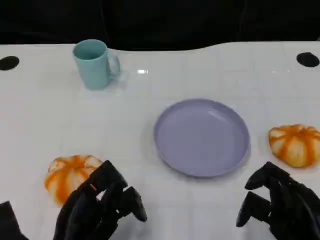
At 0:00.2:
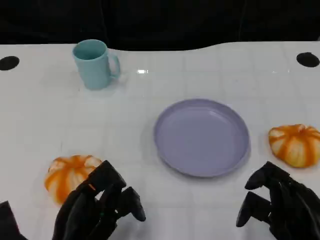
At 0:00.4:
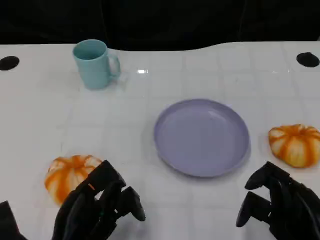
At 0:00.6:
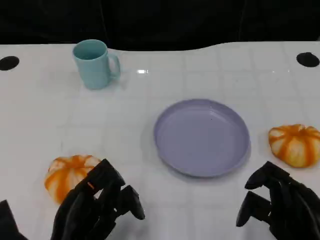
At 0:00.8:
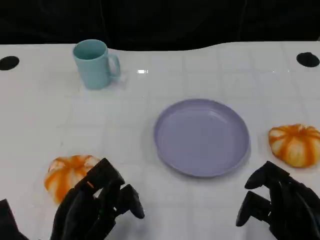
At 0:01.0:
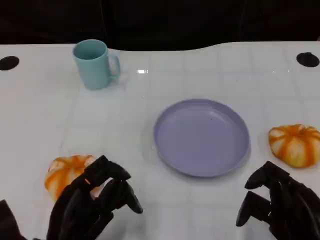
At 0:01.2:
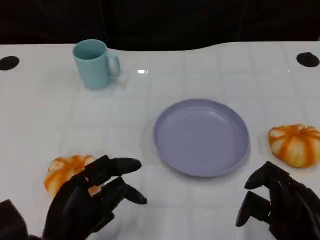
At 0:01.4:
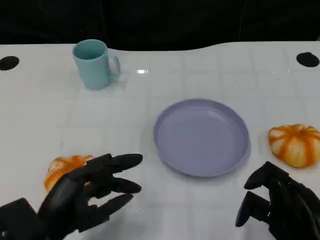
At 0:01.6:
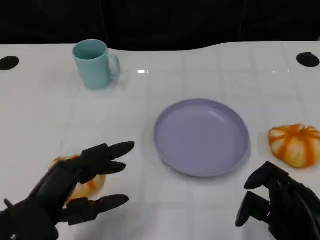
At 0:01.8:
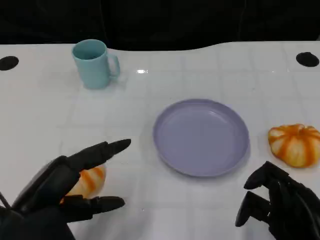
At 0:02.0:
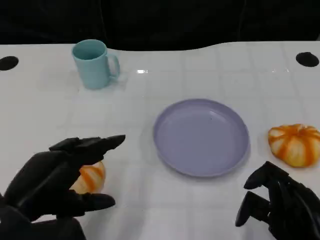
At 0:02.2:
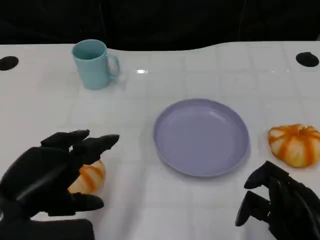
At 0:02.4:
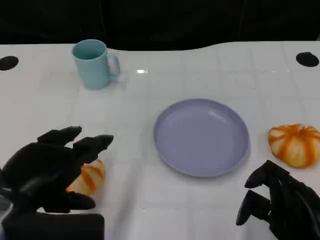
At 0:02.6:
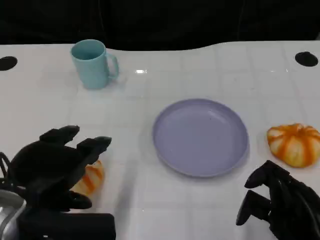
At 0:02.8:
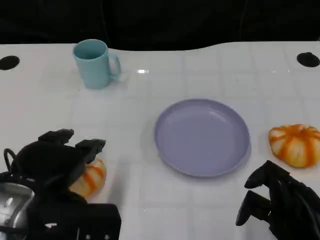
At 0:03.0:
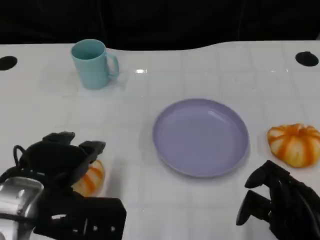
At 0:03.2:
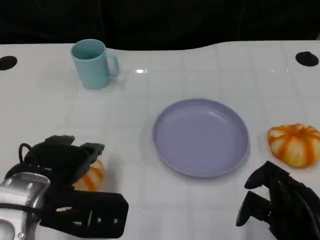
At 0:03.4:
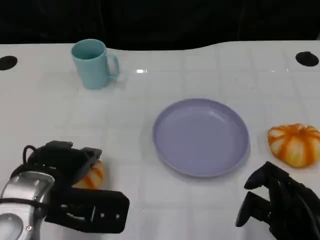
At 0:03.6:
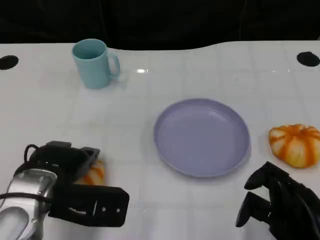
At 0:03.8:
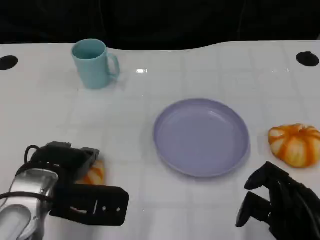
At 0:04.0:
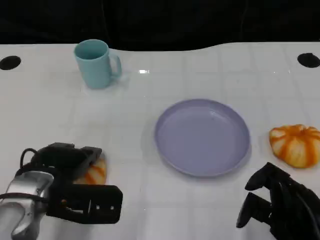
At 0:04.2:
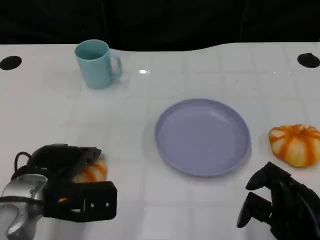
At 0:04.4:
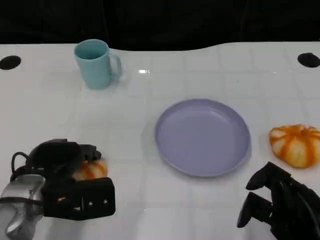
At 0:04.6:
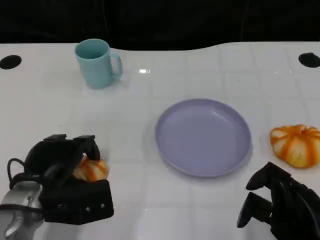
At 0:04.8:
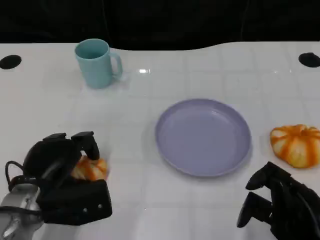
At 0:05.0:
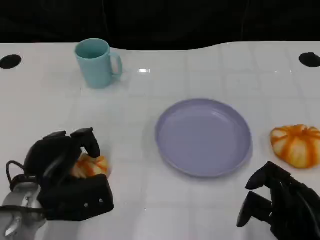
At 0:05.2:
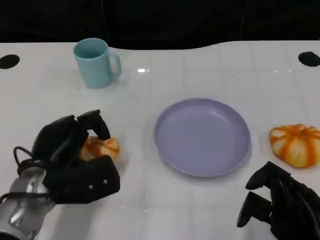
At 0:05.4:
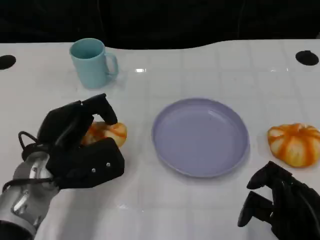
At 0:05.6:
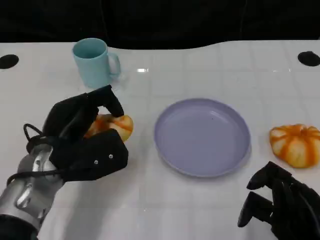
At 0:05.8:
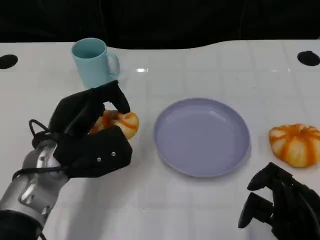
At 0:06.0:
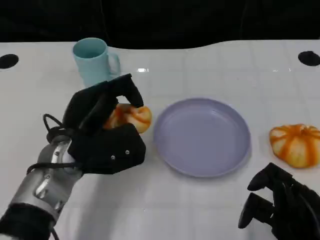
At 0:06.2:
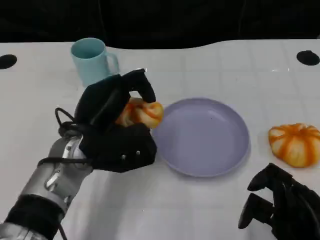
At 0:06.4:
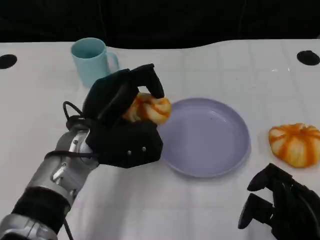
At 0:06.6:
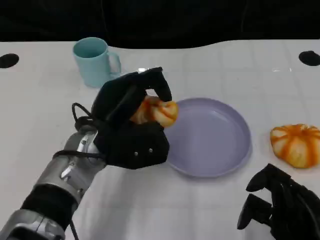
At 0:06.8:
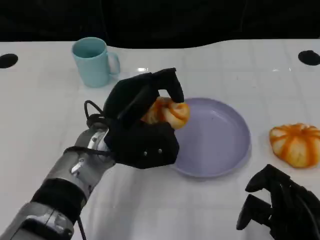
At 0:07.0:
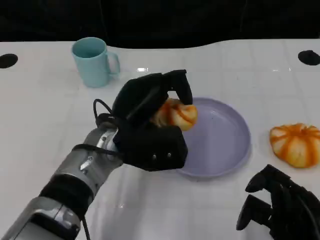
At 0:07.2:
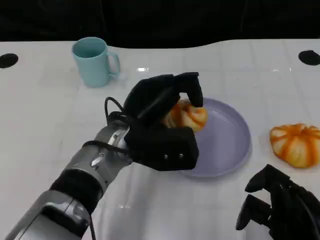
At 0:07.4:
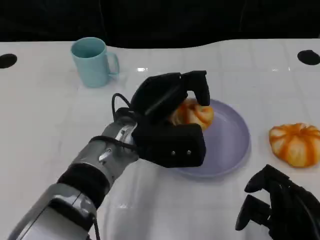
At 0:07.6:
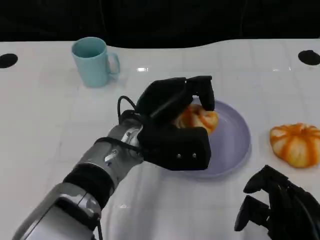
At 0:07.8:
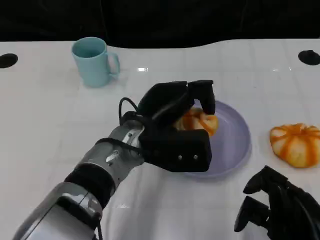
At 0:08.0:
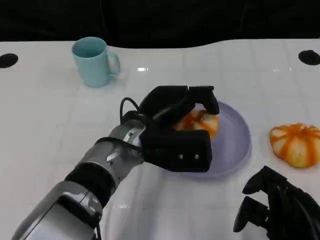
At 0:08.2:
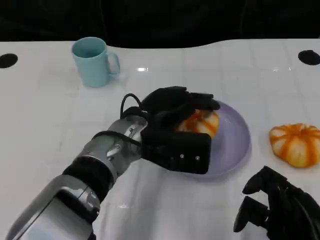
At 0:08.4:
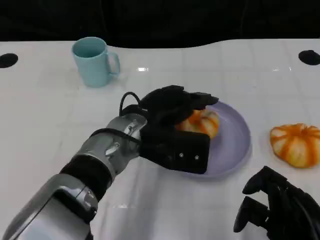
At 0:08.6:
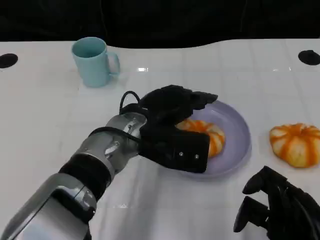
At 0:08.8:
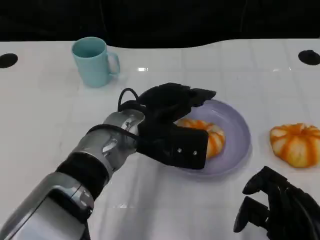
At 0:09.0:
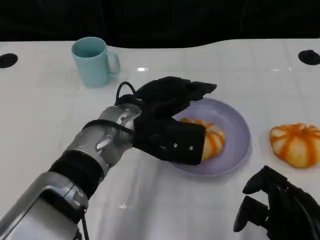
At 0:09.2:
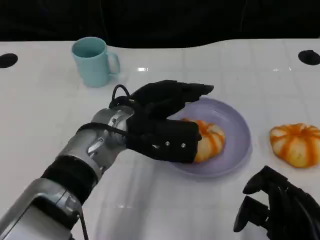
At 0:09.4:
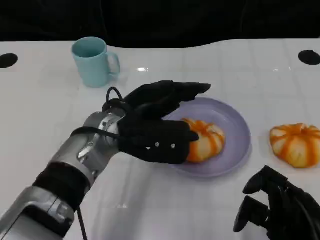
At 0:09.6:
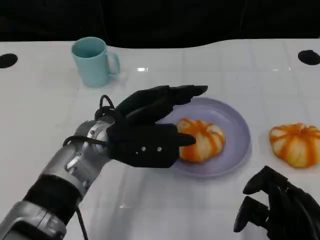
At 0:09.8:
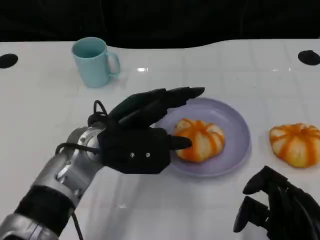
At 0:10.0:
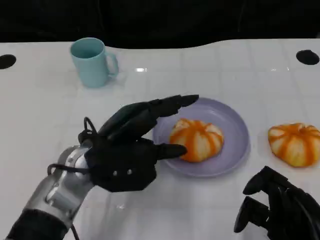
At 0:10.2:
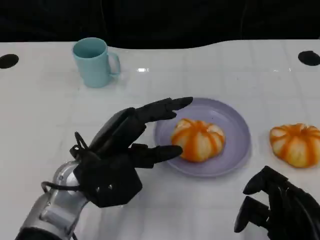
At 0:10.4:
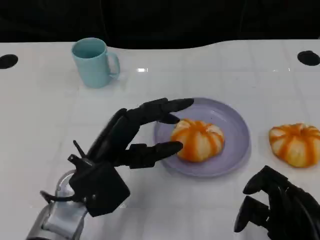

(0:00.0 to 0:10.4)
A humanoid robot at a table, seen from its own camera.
Task of the whole recording: Grasp the bread from the table and place it into the plate.
0:01.4 - 0:03.0: The left hand travels upward by roughly 5 cm.
0:03.0 - 0:04.4: The left hand moves downward, about 5 cm.
0:04.4 - 0:06.0: The left hand heads to the right, covering about 5 cm.
0:06.0 - 0:07.4: The left hand travels to the right by roughly 10 cm.
0:09.0 - 0:10.4: The left hand shifts approximately 10 cm to the left and backward.

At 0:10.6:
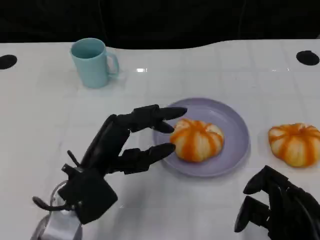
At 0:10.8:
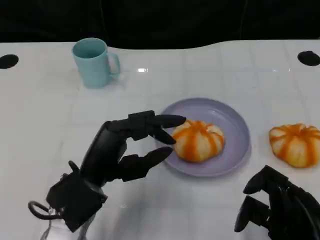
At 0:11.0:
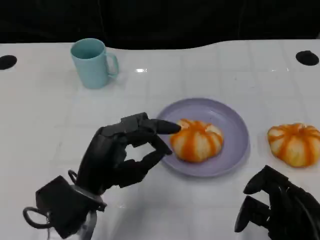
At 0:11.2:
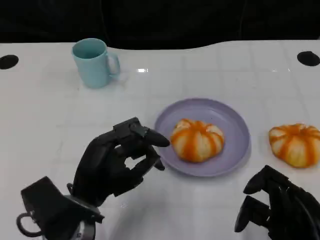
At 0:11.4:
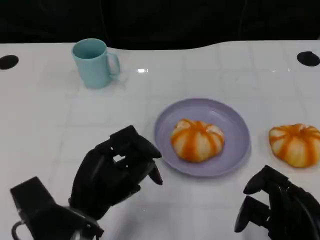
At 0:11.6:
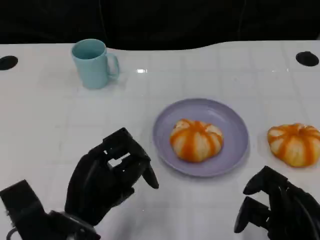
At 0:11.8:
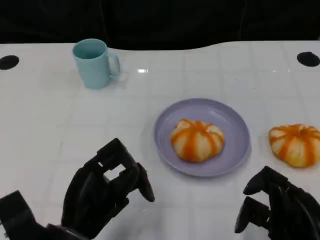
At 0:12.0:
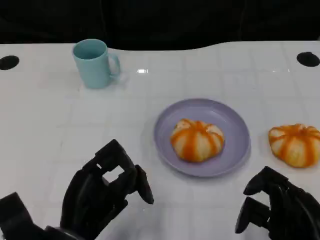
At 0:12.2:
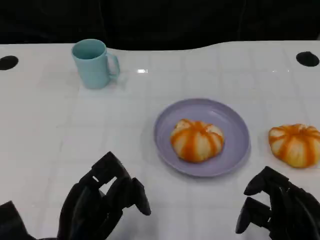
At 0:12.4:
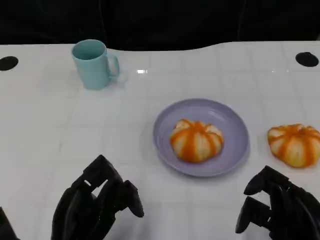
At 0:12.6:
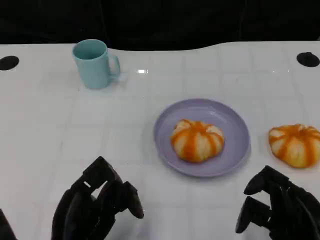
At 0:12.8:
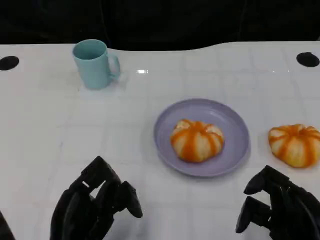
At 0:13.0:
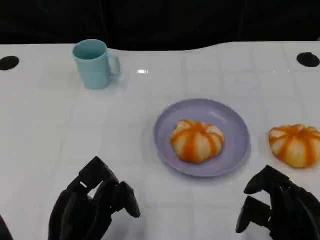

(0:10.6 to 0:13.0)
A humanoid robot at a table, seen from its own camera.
Task of the whole recording: Grasp the bread from the table and place it into the plate.
0:10.6 - 0:11.8: The left hand goes roughly 5 cm backward.
0:11.8 - 0:13.0: There are only small adjustments of the hands.

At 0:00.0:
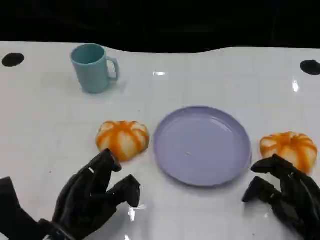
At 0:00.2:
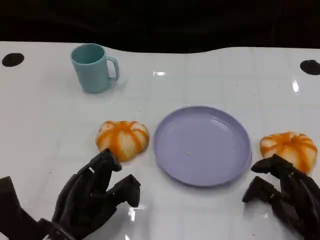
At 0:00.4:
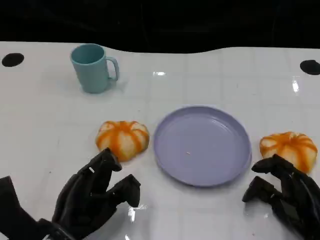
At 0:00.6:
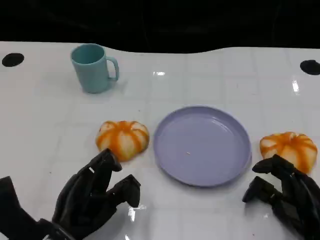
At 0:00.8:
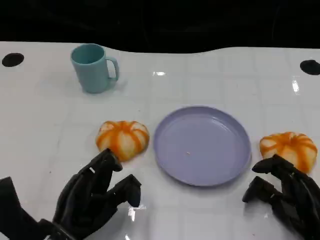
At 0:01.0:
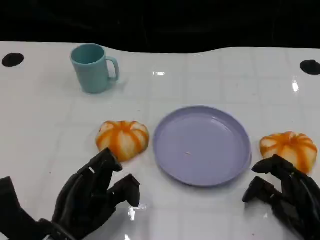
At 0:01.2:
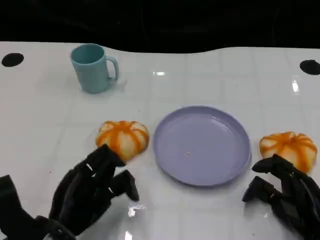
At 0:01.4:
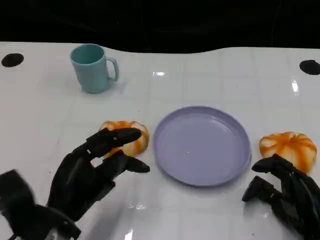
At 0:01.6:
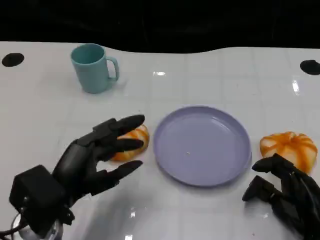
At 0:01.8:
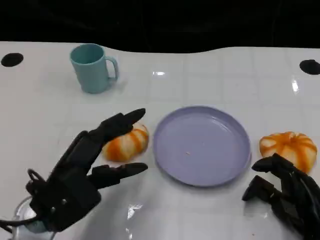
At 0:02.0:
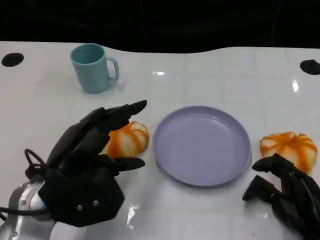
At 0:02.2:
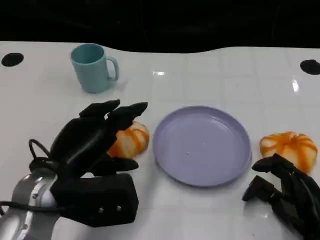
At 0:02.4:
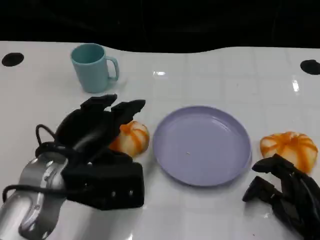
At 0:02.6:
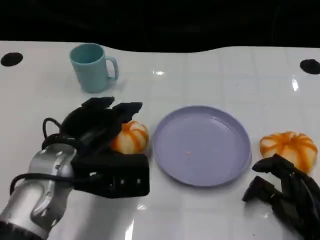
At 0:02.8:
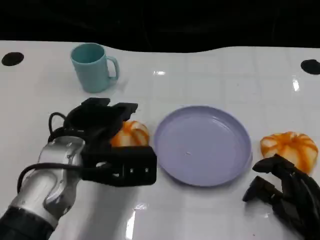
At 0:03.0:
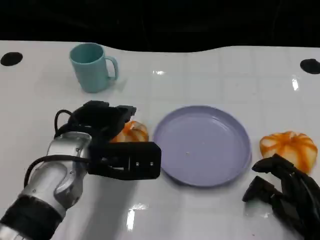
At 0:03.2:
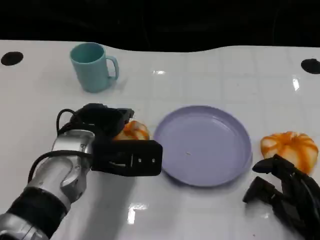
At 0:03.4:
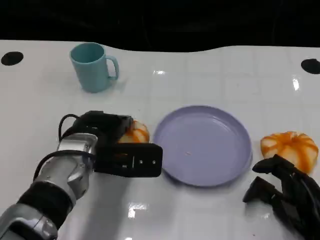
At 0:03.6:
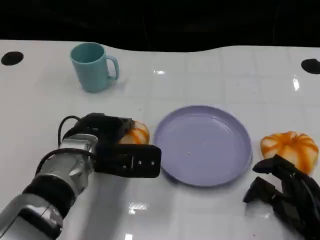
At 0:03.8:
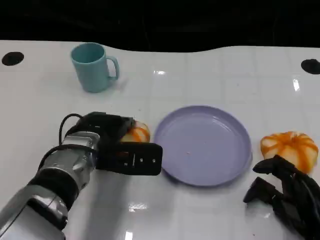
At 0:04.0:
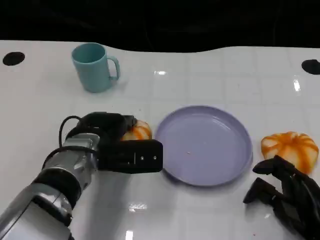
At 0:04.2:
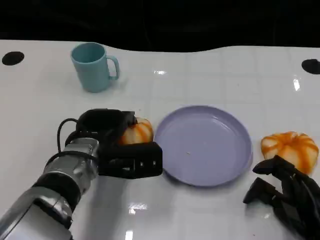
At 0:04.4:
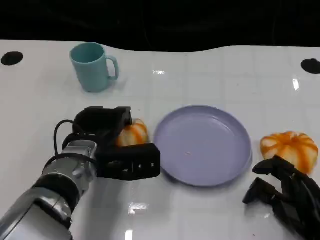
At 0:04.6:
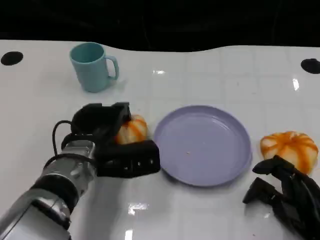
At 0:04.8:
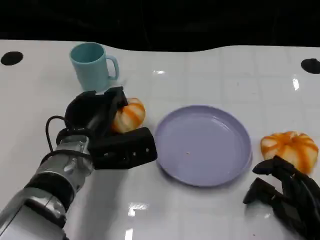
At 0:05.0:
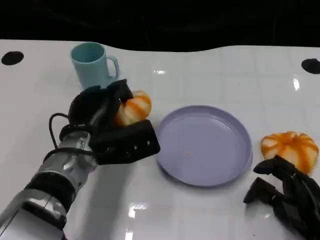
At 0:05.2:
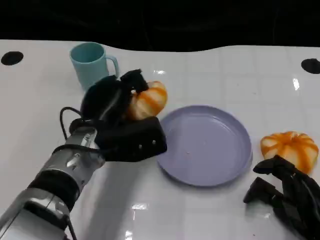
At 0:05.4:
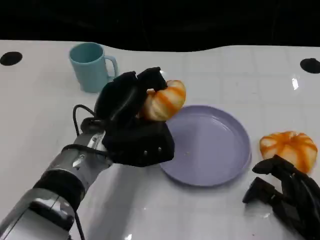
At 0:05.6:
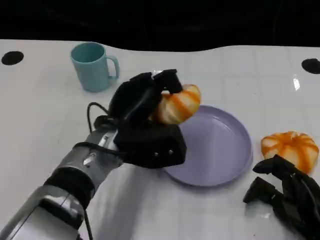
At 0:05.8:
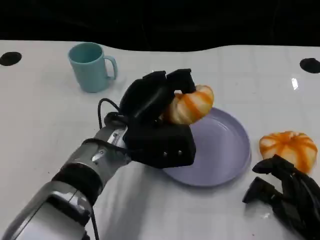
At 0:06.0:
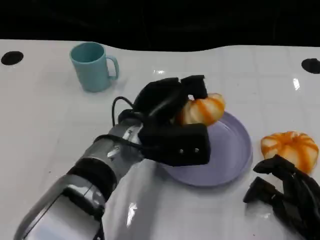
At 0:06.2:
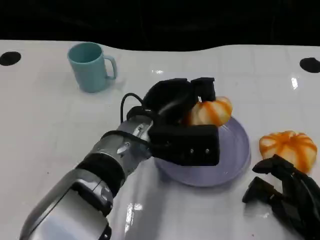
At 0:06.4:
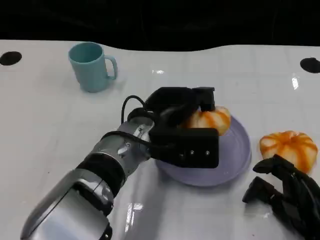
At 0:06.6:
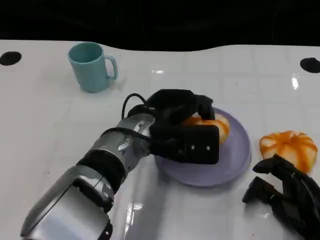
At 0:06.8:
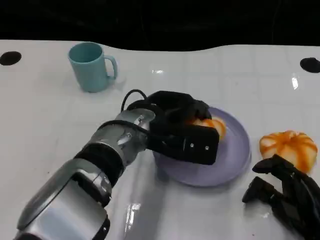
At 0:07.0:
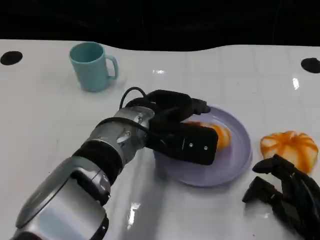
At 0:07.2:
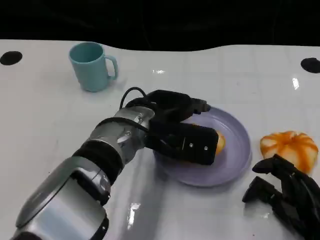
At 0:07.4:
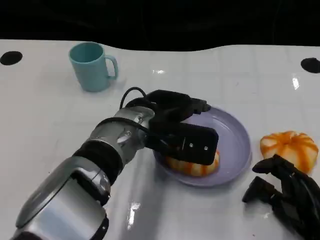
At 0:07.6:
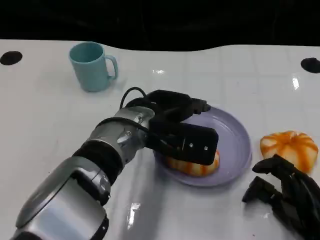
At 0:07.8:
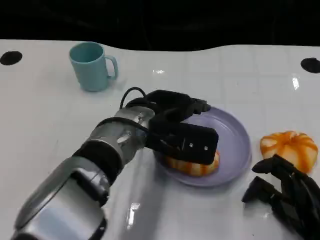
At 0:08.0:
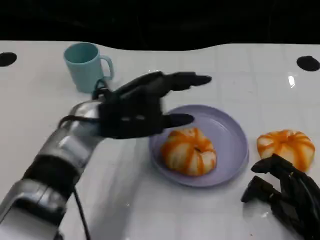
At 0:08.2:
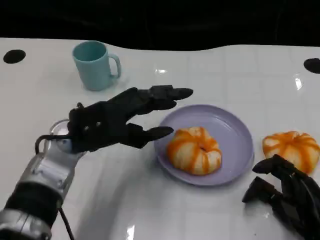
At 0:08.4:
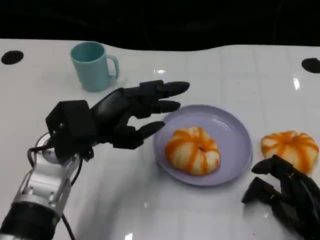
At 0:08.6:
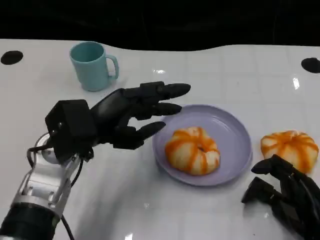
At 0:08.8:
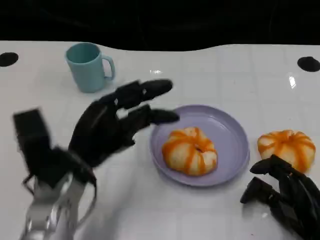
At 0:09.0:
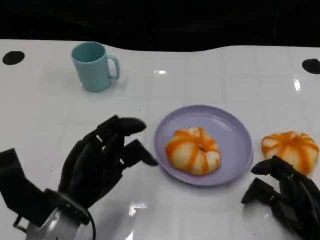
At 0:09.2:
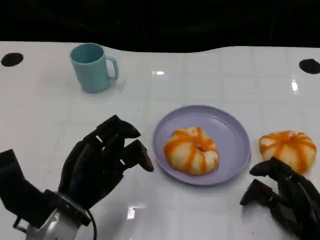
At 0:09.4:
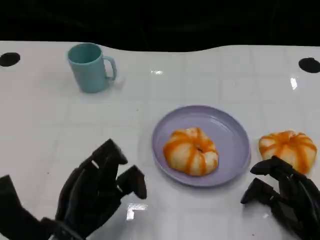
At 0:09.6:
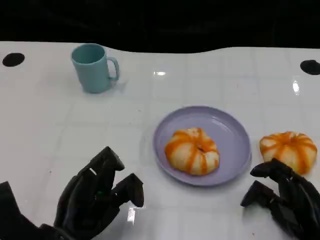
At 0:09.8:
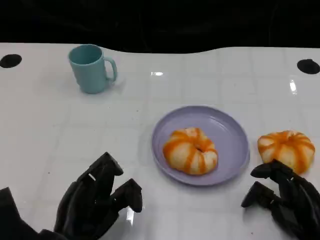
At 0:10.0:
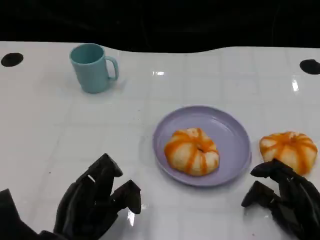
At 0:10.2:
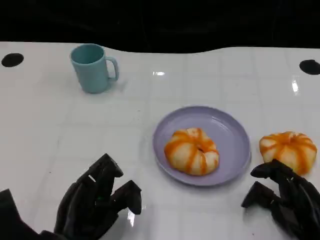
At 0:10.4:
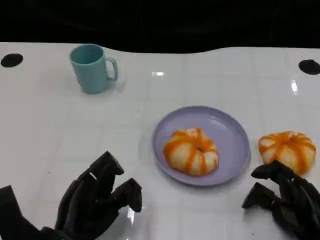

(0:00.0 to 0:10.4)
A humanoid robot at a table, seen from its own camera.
Task of the whole recording: Grasp the bread from the table and place it into the plate.
0:01.4 - 0:03.0: The left hand moves forward, approximately 10 cm.
0:03.0 - 0:04.4: The left hand ends up about 5 cm from where it was.
0:04.4 - 0:06.0: The left hand heads to the right, covering roughly 10 cm.
0:07.4 - 0:09.0: The left hand goes some 15 cm to the left, backward and downward.
